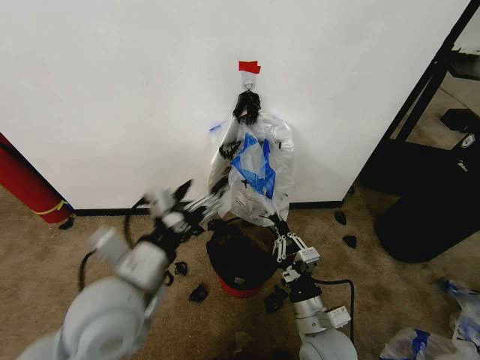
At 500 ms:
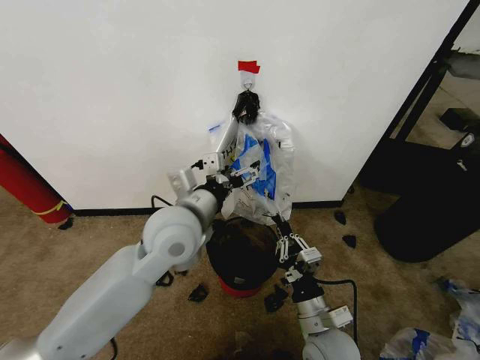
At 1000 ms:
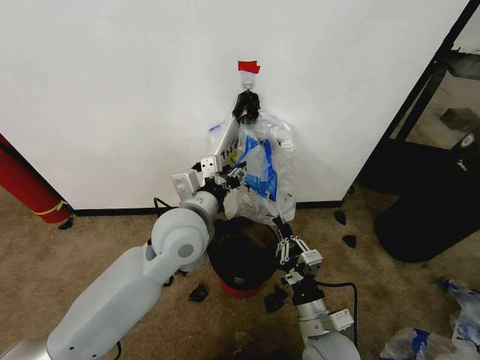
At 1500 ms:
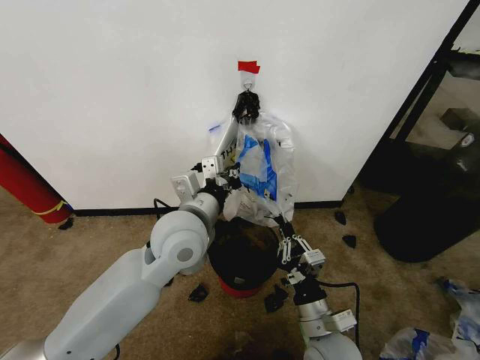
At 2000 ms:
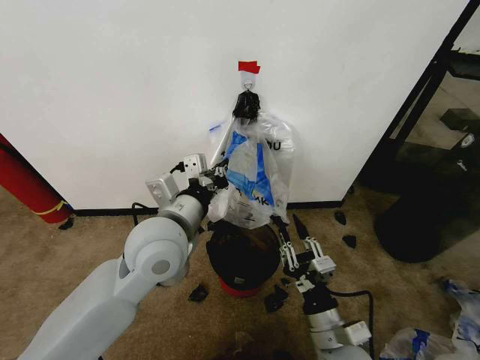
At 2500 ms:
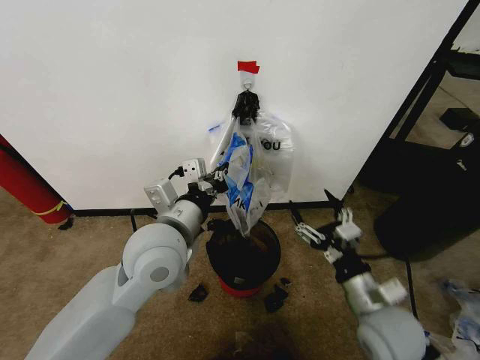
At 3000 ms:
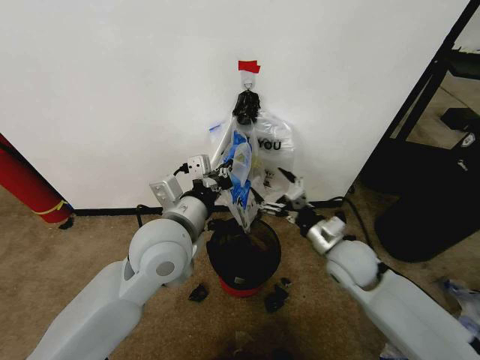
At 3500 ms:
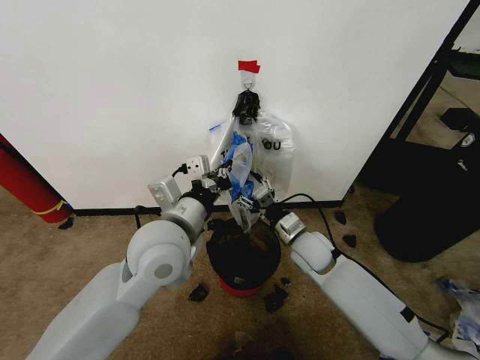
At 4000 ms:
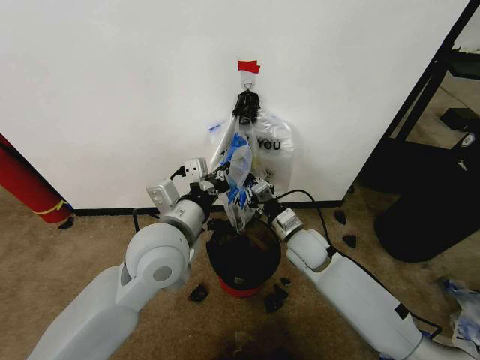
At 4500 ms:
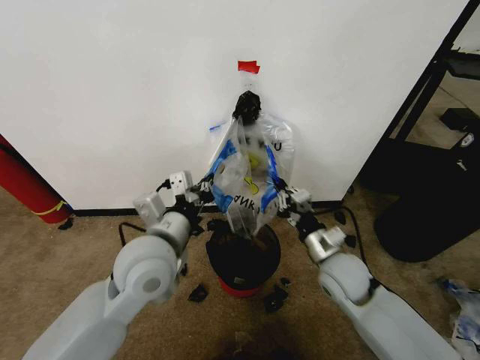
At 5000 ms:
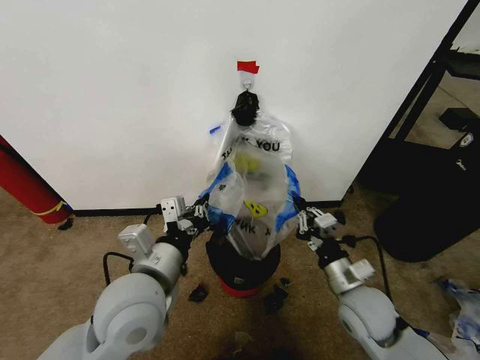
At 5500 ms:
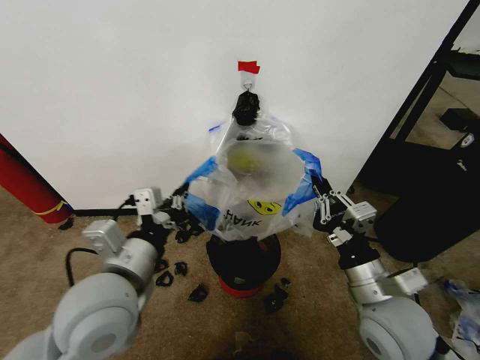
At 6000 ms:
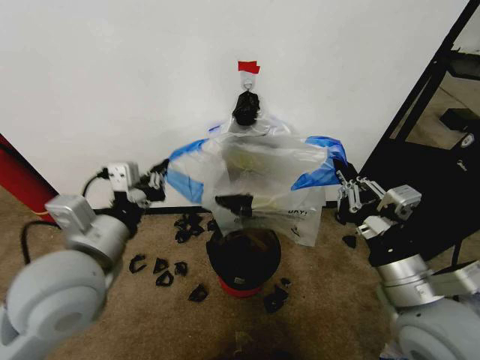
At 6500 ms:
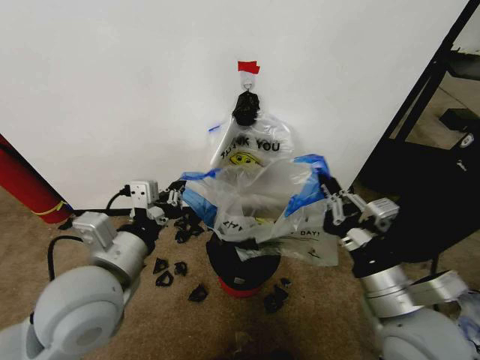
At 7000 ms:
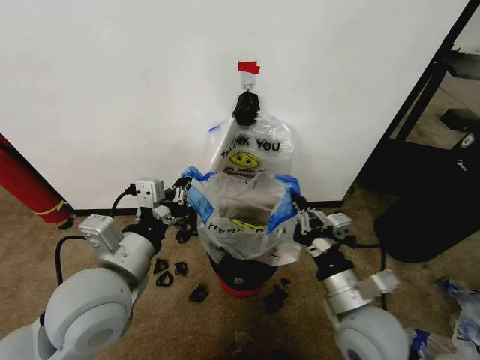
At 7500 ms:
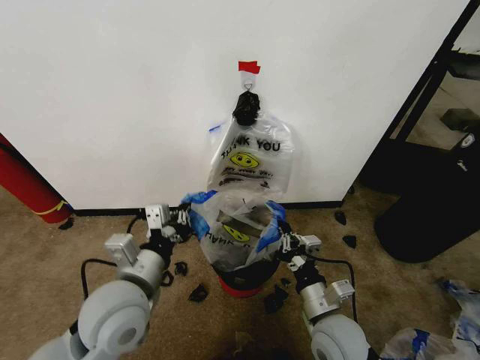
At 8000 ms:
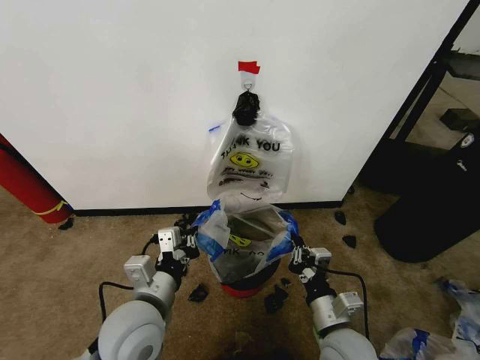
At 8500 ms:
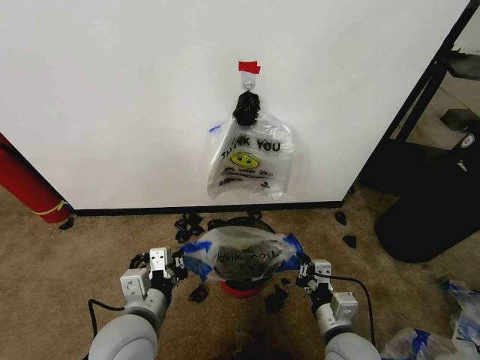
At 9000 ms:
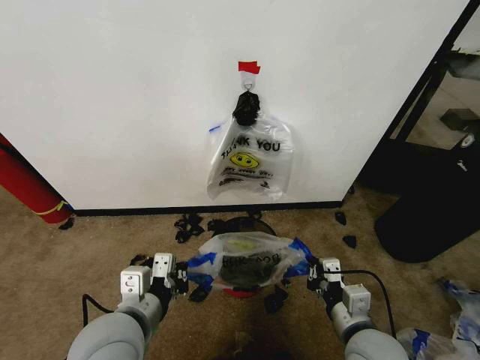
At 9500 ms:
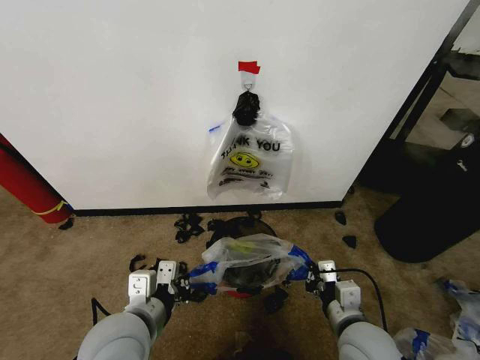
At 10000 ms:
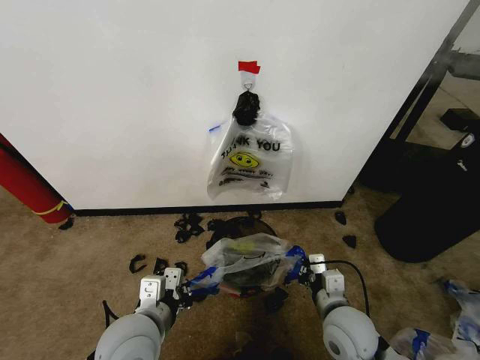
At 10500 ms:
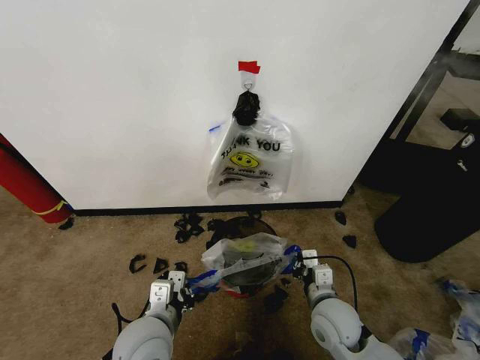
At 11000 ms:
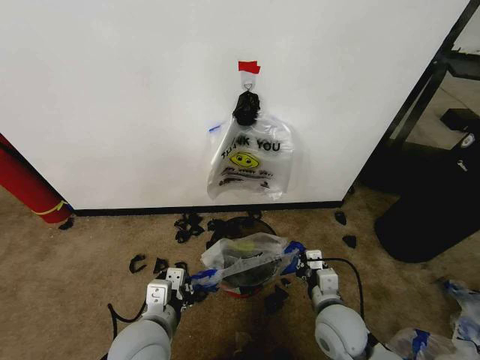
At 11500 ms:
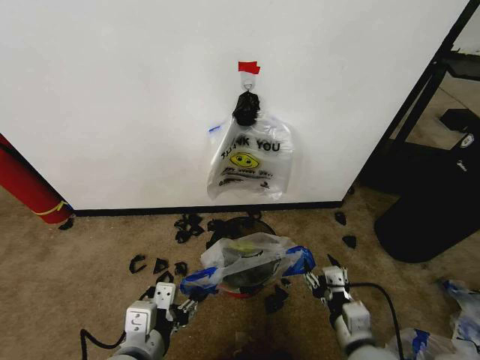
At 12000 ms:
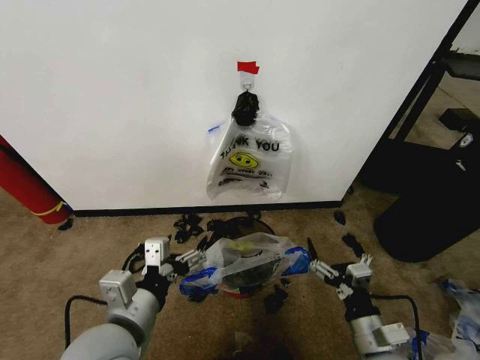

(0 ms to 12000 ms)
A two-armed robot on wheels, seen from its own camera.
Task of the whole recording: Pick up the garbage bag from the wall and place it over the trash bin.
0 ms - 2000 ms: The left gripper moves forward, some 10 cm, and closes.
2000 ms - 4000 ms: The right gripper moves forward, roughly 25 cm, and opens, then closes again.
4000 ms - 6000 ms: The left gripper travels to the left and backward by some 10 cm. The right gripper heads backward, upward and to the right, covering some 30 cm.
6000 ms - 8000 ms: Both grippers travel together downward, approximately 15 cm.
10000 ms - 12000 ms: The right gripper heads backward and to the right, covering about 10 cm, and opens up, while the left gripper changes place by approximately 5 cm, and opens its fingers.

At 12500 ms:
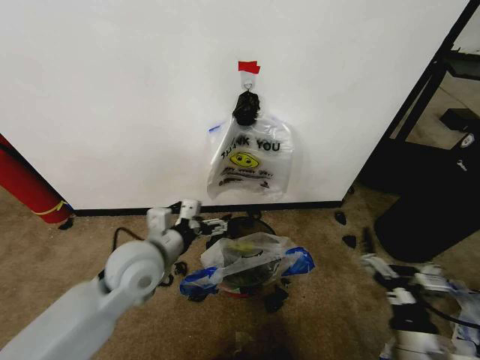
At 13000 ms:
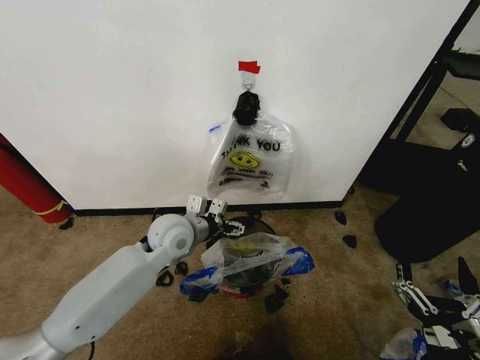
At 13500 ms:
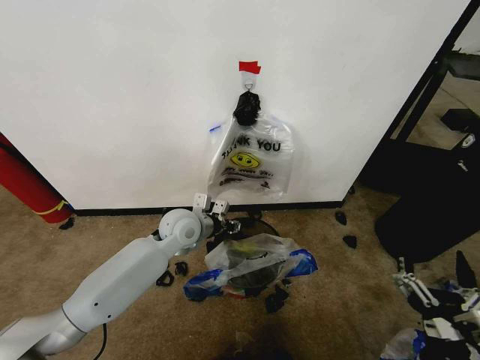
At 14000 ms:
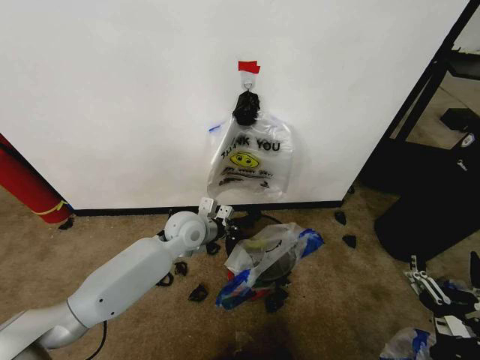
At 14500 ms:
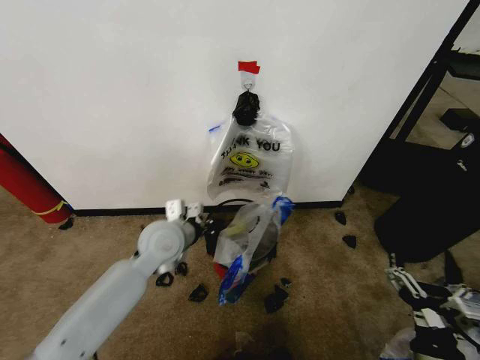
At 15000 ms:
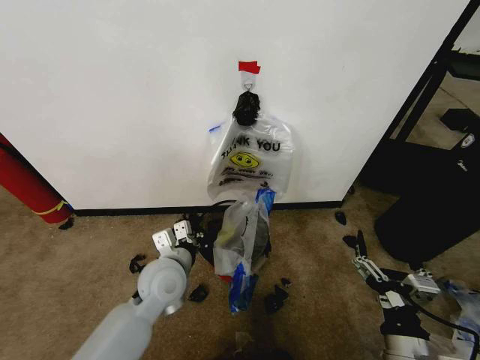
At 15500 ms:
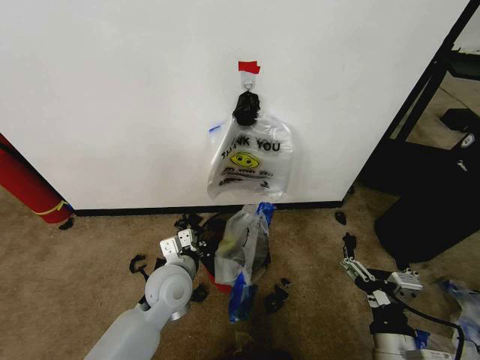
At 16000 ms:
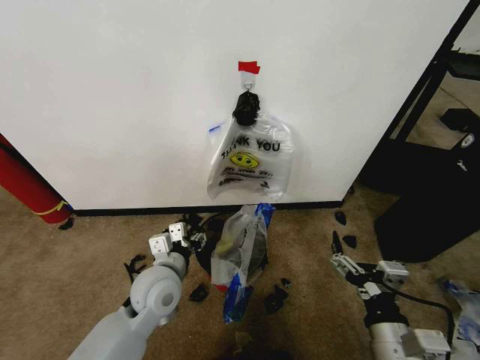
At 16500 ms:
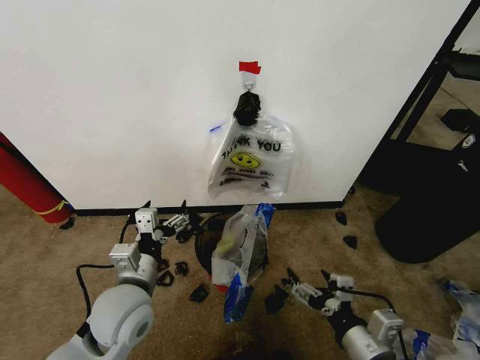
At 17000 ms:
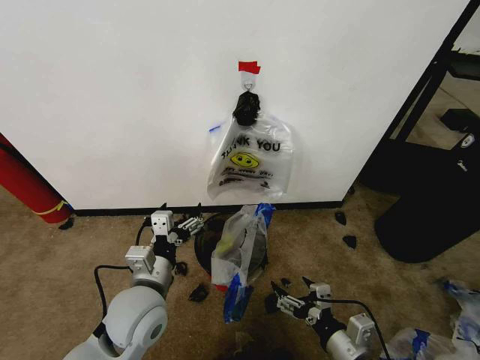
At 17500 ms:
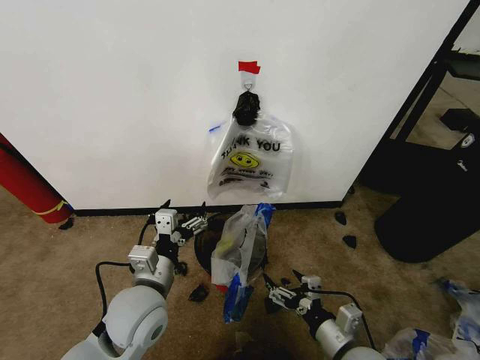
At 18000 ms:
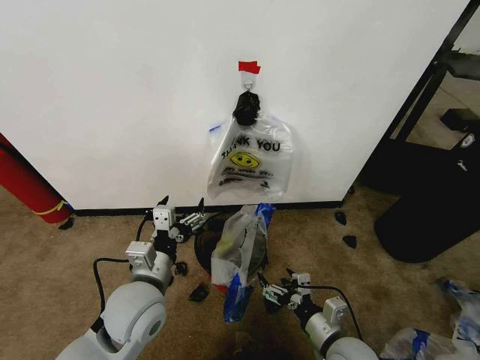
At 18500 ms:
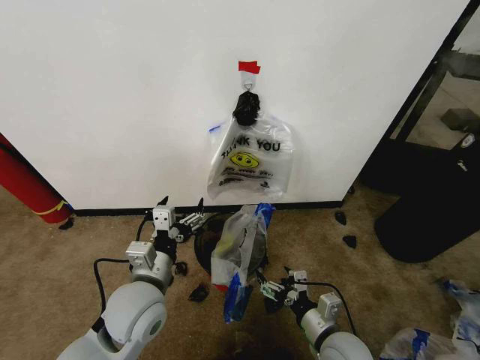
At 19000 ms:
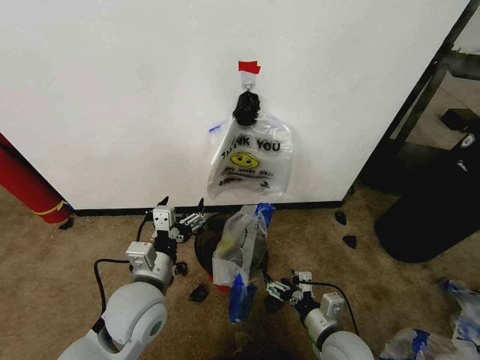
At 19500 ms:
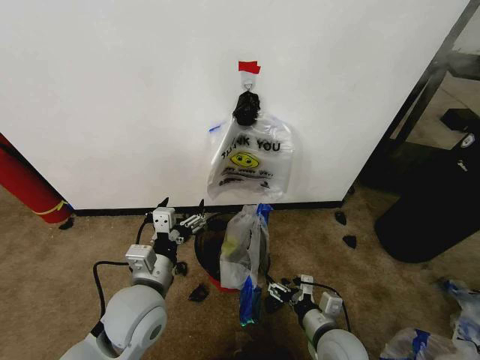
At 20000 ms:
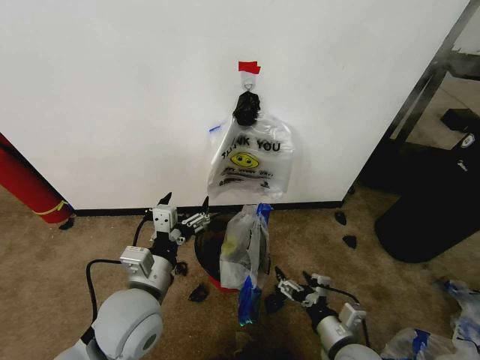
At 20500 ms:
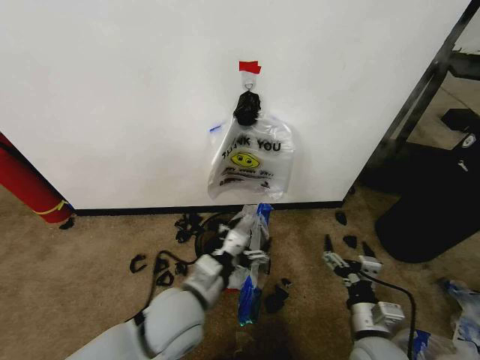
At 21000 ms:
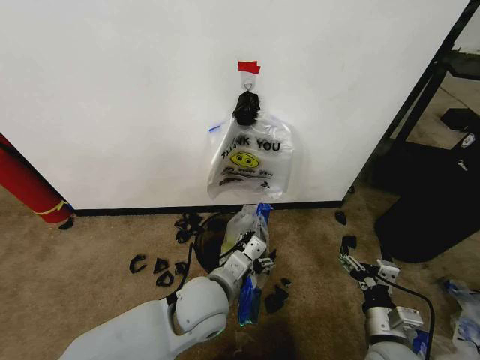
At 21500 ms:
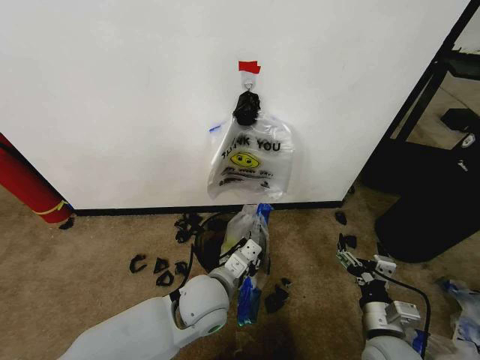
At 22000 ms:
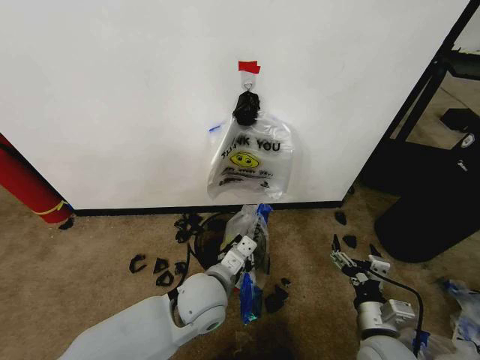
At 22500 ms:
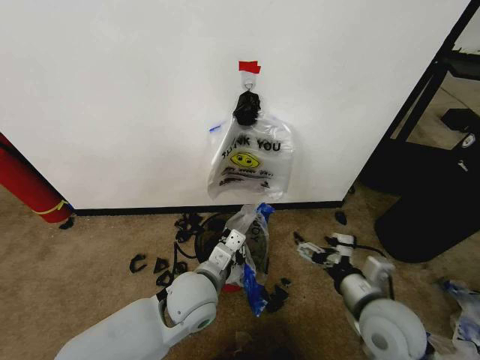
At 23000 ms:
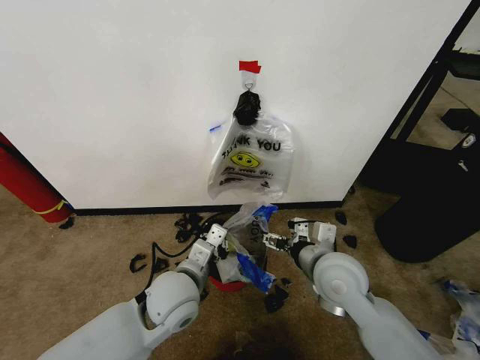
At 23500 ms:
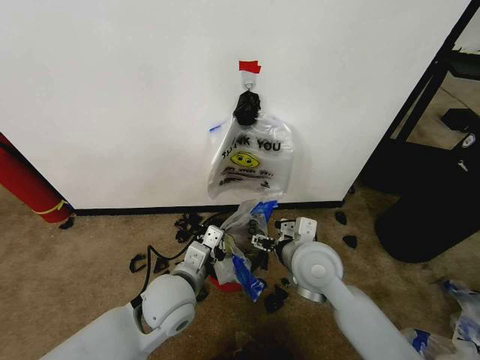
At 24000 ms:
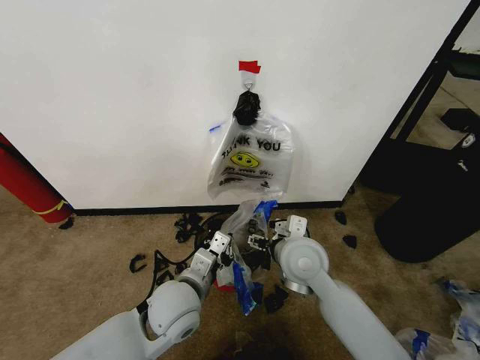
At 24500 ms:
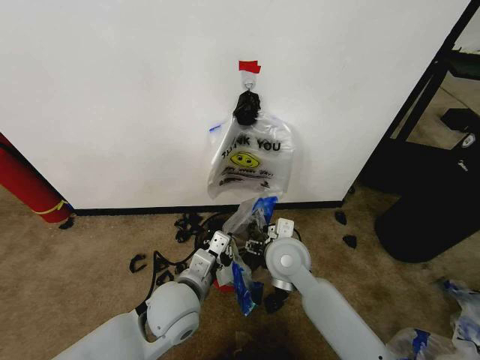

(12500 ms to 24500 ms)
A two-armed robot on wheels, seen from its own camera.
Task of the whole recording: Pick up the garbage bag from the wall and place it over the trash bin.
12500 ms - 14500 ms: The left gripper moves forward, about 10 cm, and closes.
14500 ms - 16500 ms: The left gripper travels backward by about 15 cm, and opens its fingers. Meanwhile the right gripper shifts some 5 cm to the left.
16500 ms - 18500 ms: The right gripper heads downward and forward, covering some 10 cm.
18500 ms - 20500 ms: Both grippers move to the right, roughly 5 cm.
20500 ms - 22500 ms: The right gripper goes approximately 10 cm upward; the left gripper shifts by approximately 5 cm, and closes its fingers.
22500 ms - 24500 ms: The right gripper goes approximately 20 cm to the left and forward.

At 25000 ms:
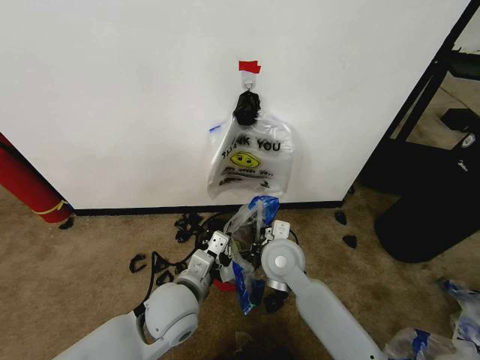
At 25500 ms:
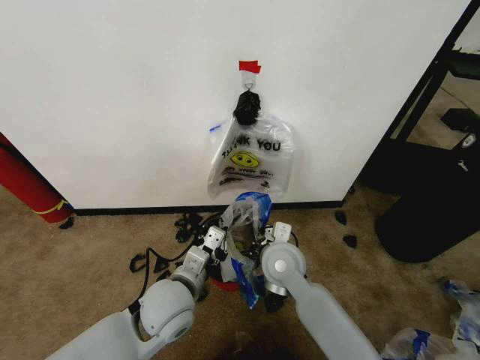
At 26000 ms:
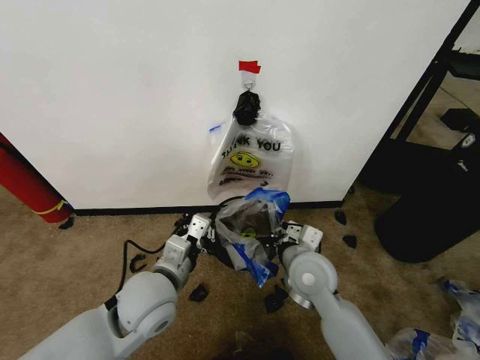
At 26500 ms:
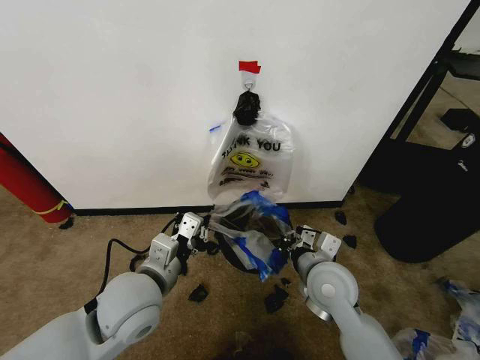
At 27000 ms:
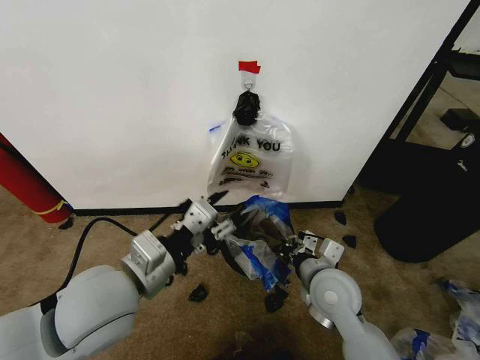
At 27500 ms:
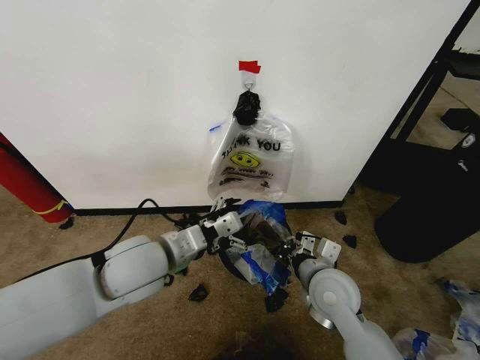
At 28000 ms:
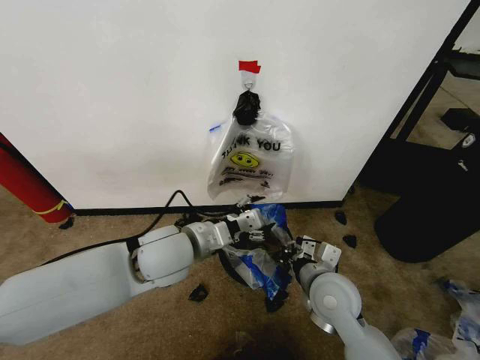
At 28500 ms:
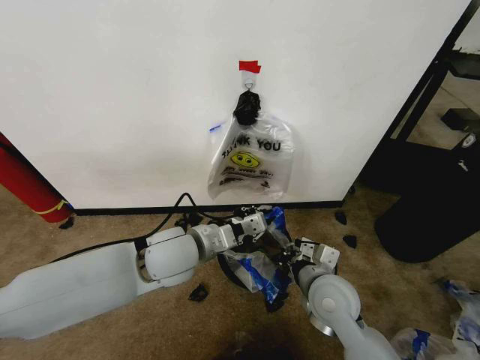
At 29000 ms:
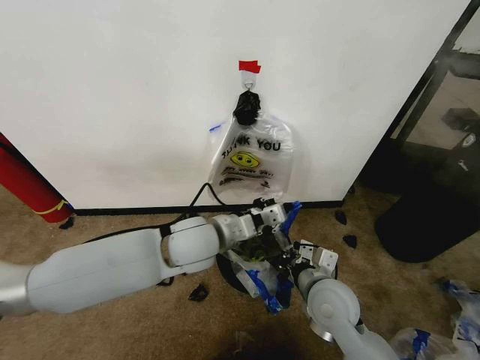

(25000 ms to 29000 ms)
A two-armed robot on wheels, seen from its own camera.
Task of the whole recording: Pick up the garbage bag from the wall and place it over the trash bin.
25000 ms - 27000 ms: The right gripper goes roughly 10 cm to the right and backward, and closes its fingers; the left gripper travels upward and to the left by about 15 cm, and opens.
27000 ms - 29000 ms: The left gripper shifts about 15 cm forward and to the right, and closes its fingers.
